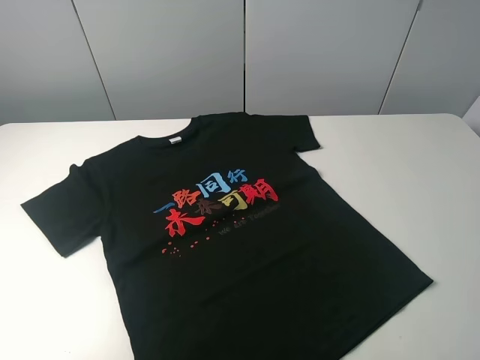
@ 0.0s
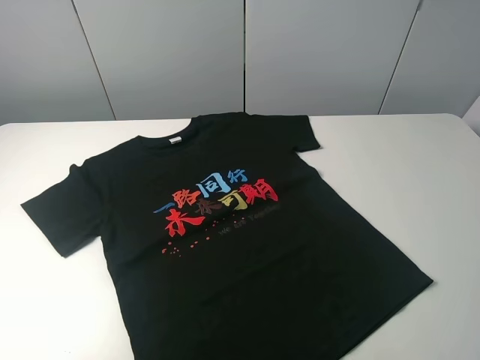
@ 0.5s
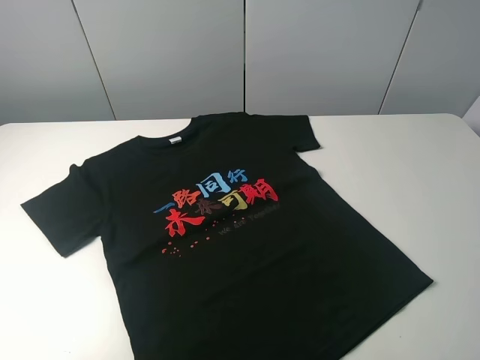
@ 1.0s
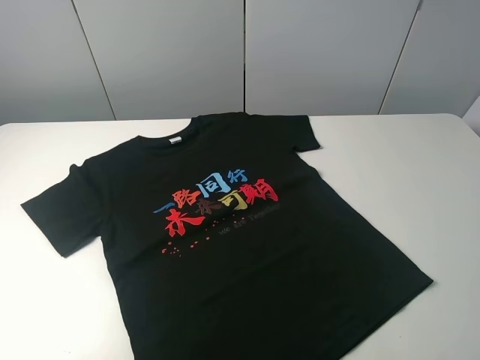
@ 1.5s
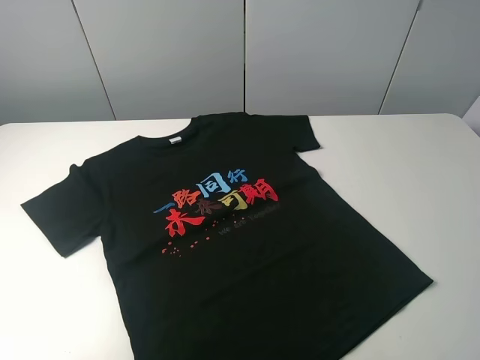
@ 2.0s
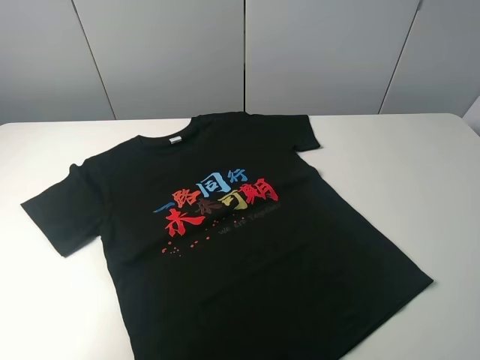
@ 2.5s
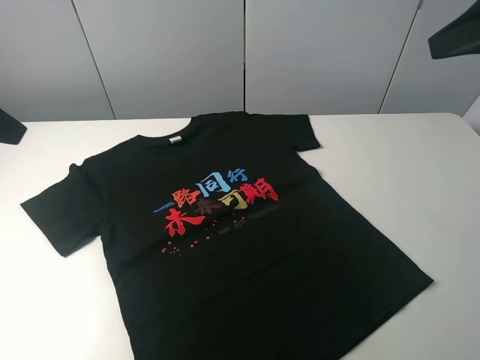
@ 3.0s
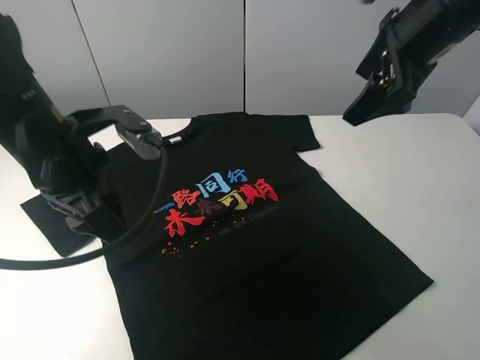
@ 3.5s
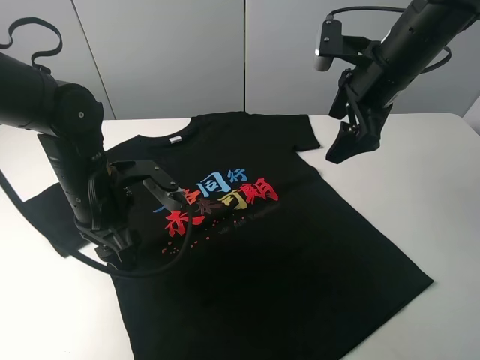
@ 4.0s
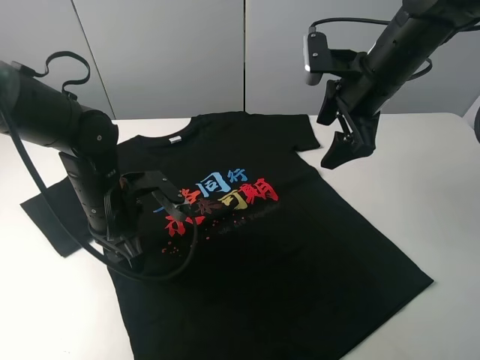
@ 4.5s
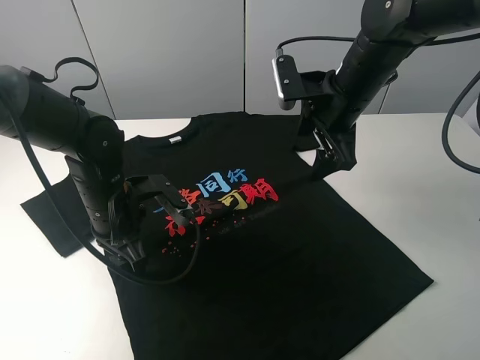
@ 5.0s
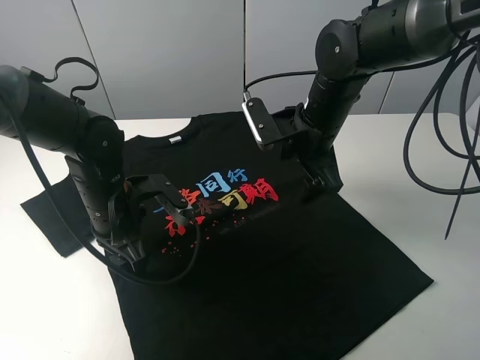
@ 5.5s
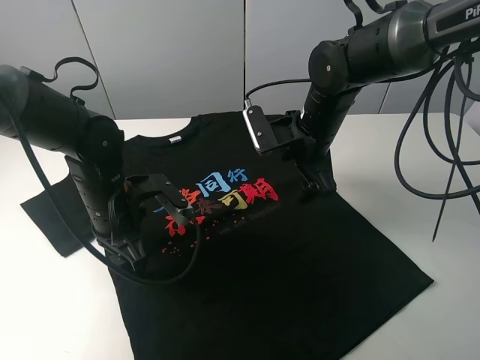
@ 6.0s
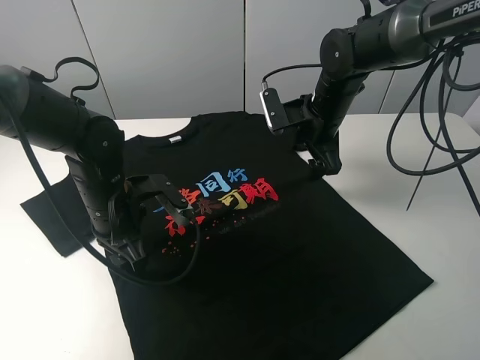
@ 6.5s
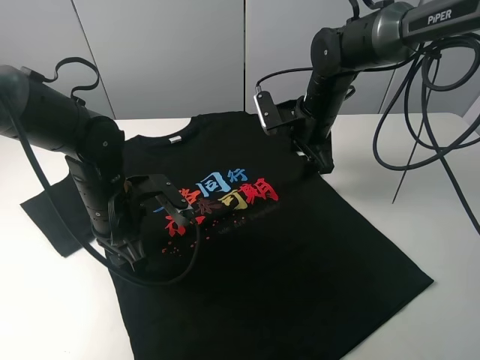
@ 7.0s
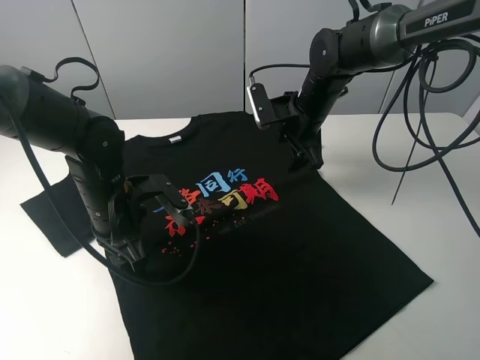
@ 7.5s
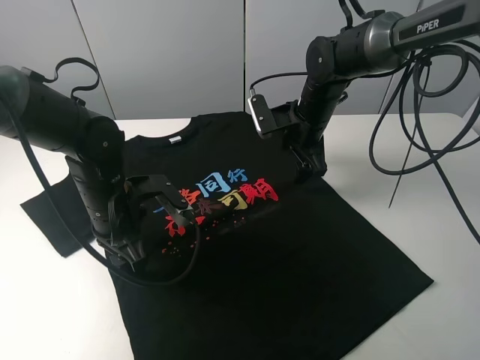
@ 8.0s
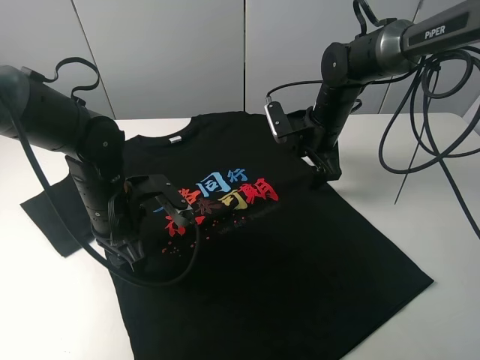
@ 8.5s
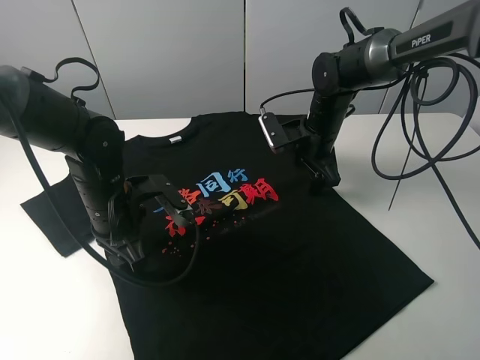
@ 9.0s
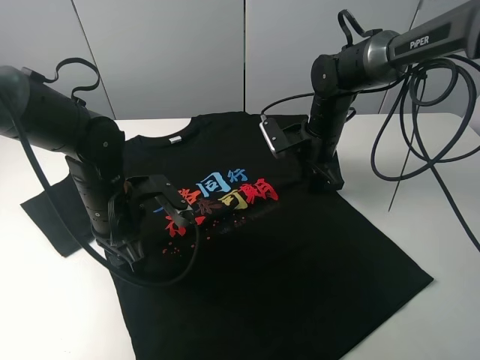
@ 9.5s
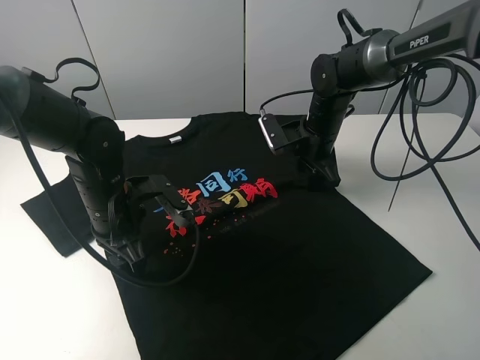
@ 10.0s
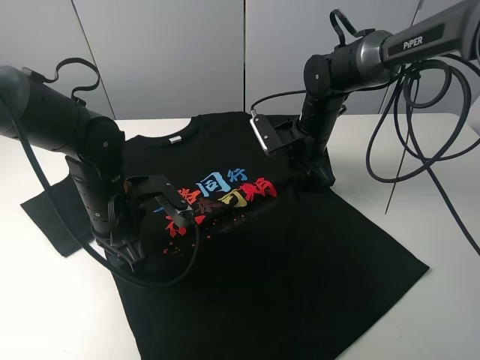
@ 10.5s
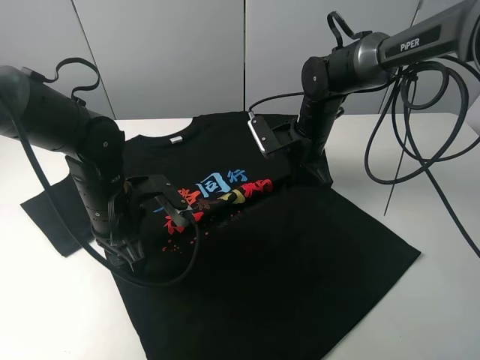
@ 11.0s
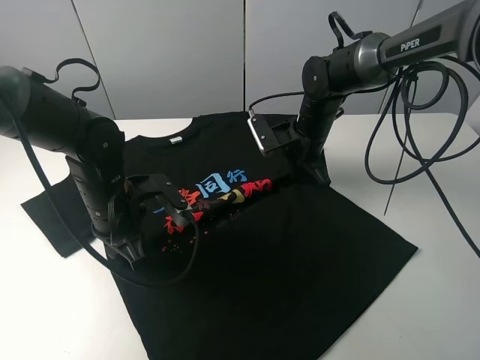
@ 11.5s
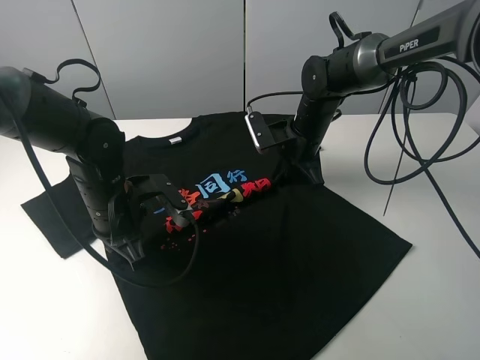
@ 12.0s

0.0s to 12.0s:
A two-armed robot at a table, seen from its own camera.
Task of the whole recording: fold the clothes on the table.
Step, 0.0s to 10.0s: Lift the black T-shirt with the left gripper.
0.0s to 2.0s: Both grippers stay put.
2.0s to 4.0s: The right gripper goes approximately 35 cm forward; the left gripper moves forward, to the right and downward, roughly 35 cm.
4.0s to 6.0s: The right gripper travels downward and to the left by some 10 cm.
6.0s to 8.0s: The right gripper shifts about 5 cm forward.
8.0s to 10.0s: The grippers move only a little.
10.0s to 12.0s: The left gripper closes up; the right gripper closes.

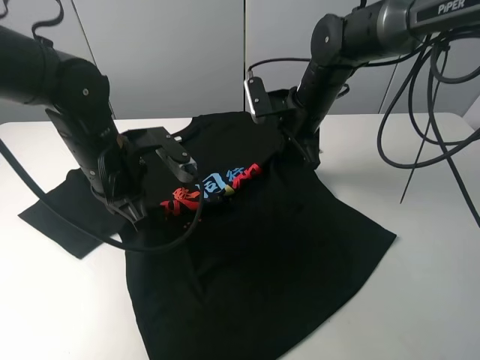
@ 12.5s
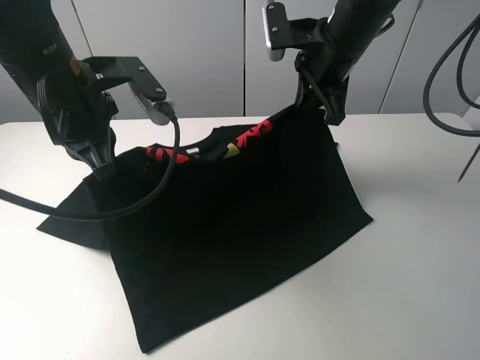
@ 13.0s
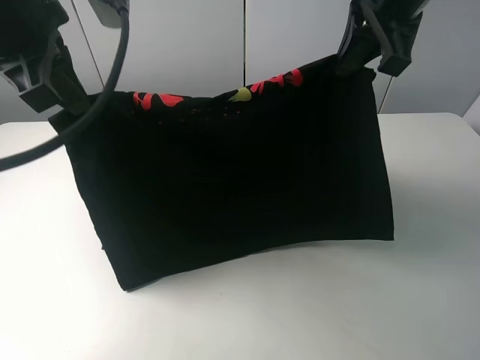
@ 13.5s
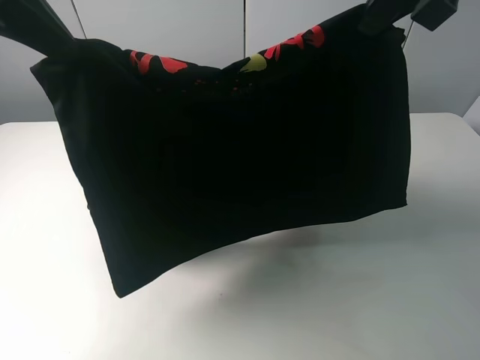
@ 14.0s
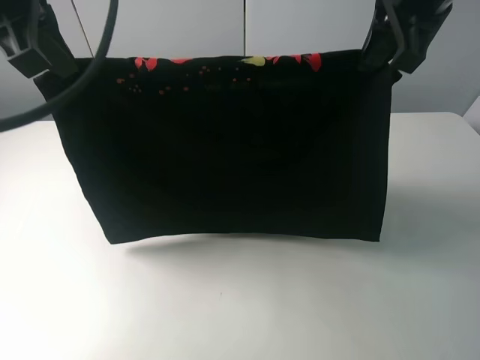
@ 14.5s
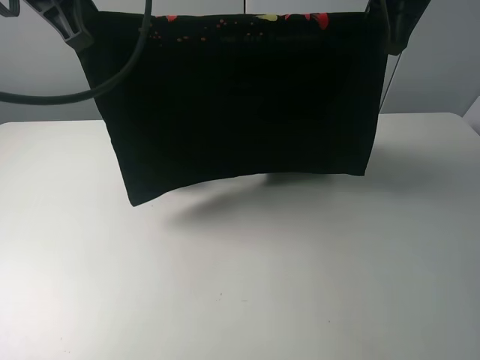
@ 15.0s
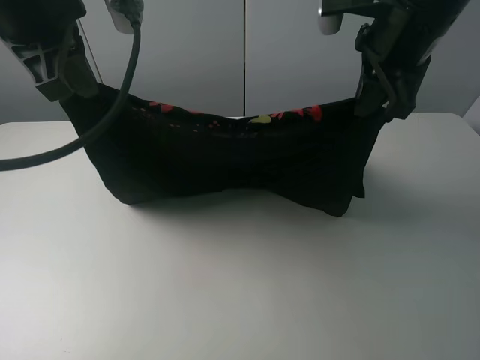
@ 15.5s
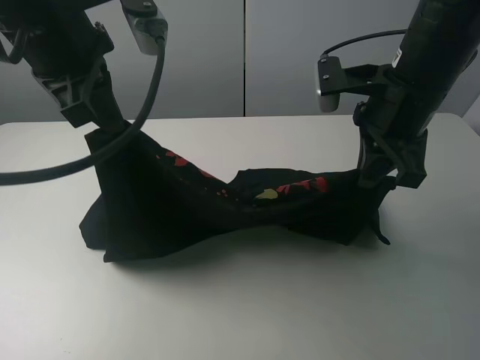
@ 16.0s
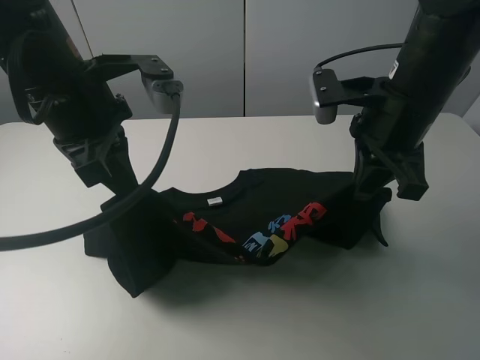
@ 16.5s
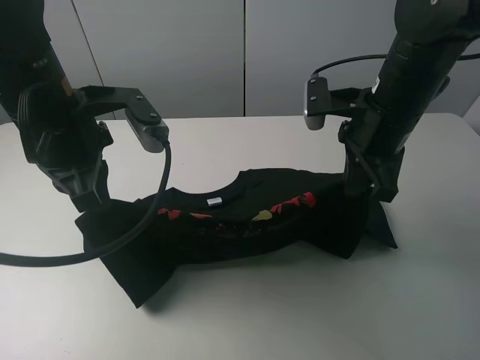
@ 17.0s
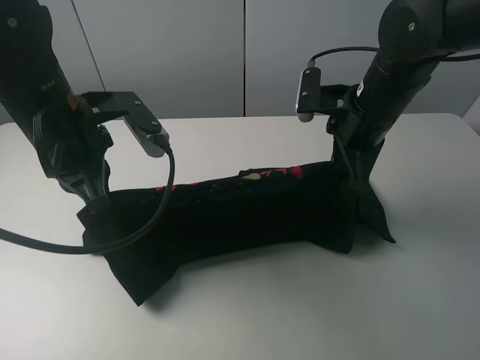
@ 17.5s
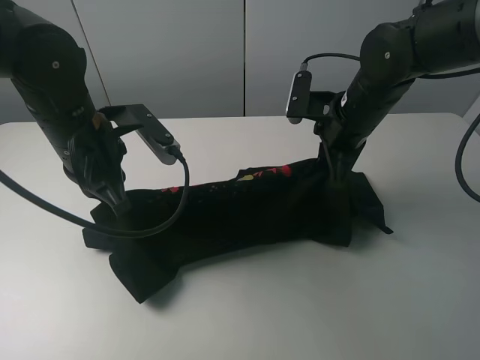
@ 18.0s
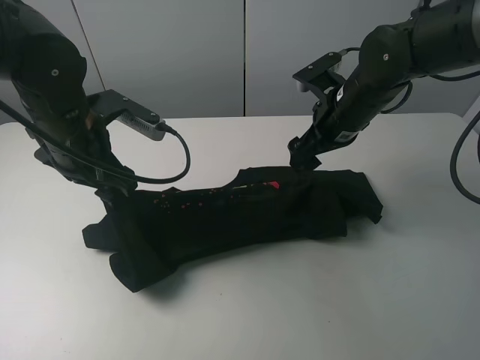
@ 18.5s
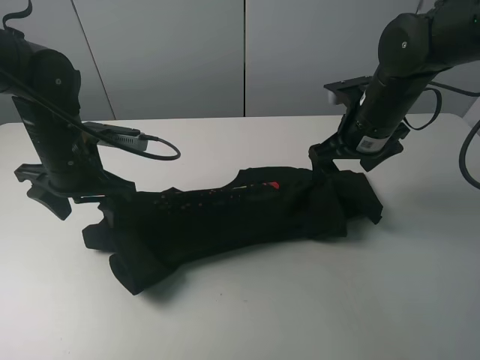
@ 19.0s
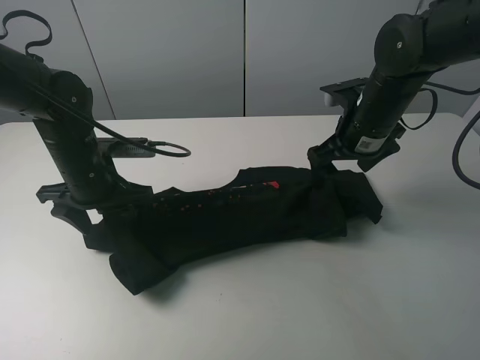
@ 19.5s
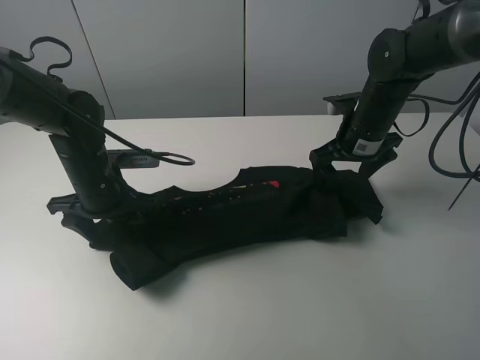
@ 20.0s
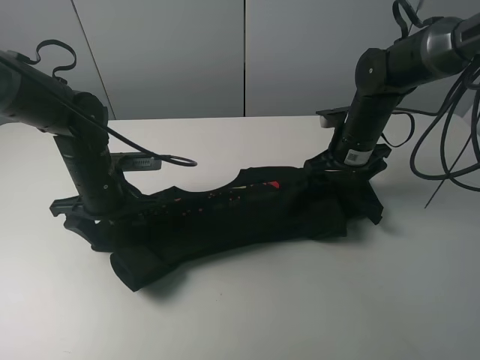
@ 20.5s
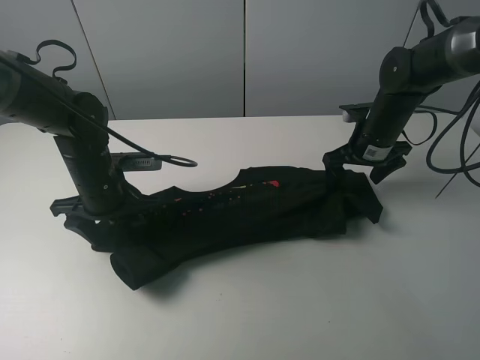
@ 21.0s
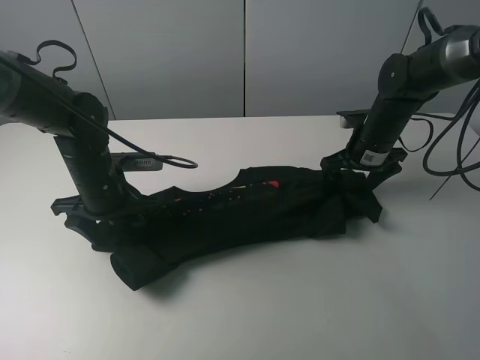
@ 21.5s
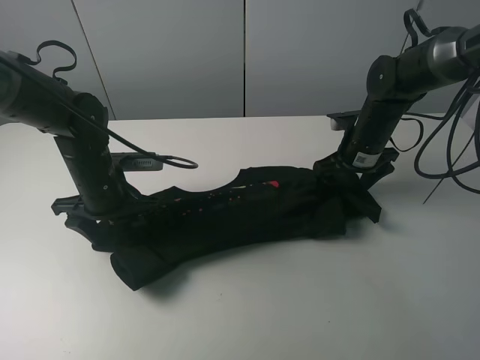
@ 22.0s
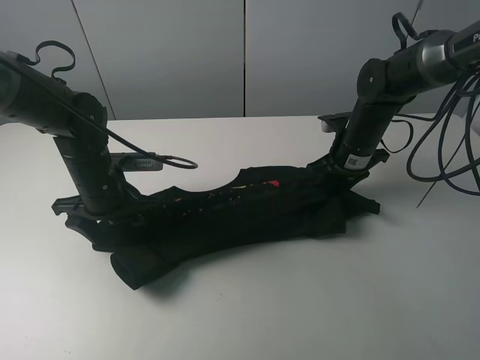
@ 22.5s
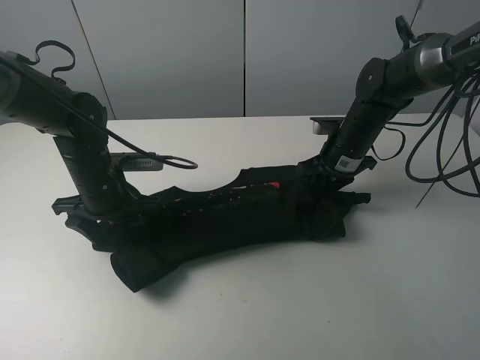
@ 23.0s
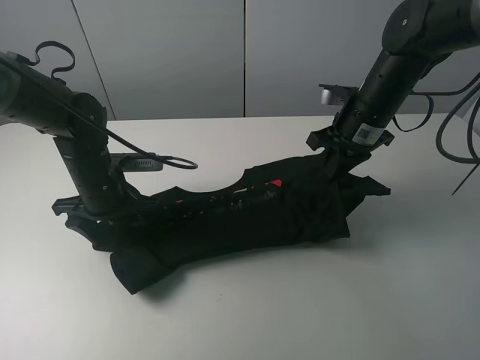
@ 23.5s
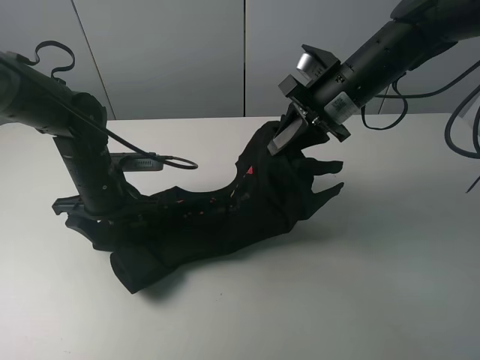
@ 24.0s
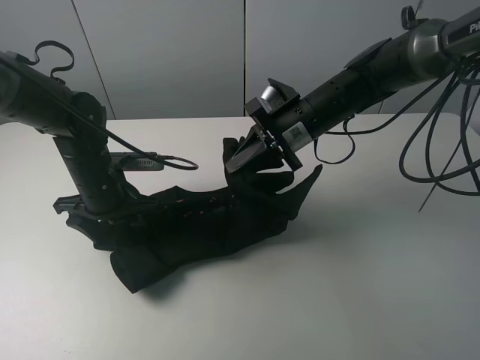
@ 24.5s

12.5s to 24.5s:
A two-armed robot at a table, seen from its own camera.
Task of the whole recording: fold the clothes on the table.
Step, 12.5s to 18.0s: Fold the black T-shirt downward with the left gripper.
Step, 18.5s to 22.5s: Grasp the black T-shirt with the right gripper.
12.5s to 14.5s: The left gripper travels upward by approximately 20 cm, while the right gripper is displaced upward and backward by some 20 cm.
14.5s to 16.5s: The two grippers go roughly 10 cm downward.
16.5s to 18.5s: The right gripper travels forward and downward by about 10 cm, and opens up, while the left gripper heads downward, covering roughly 5 cm, and opens up.
18.5s to 20.5s: The left gripper goes about 10 cm downward, while the right gripper goes about 5 cm downward.
20.5s to 22.5s: The right gripper closes.
22.5s to 24.5s: The right gripper moves to the left and upward, about 10 cm.

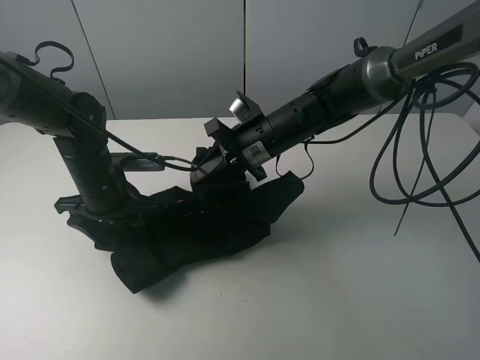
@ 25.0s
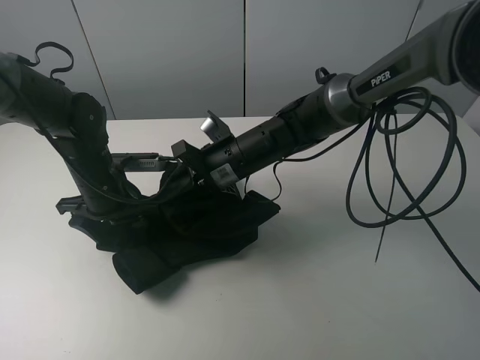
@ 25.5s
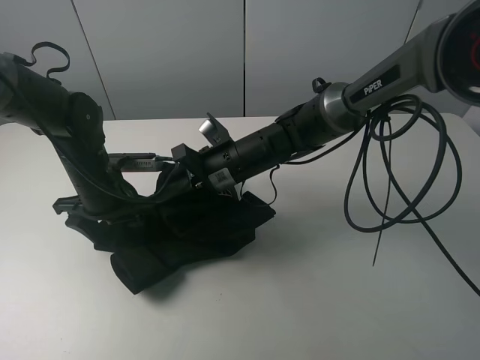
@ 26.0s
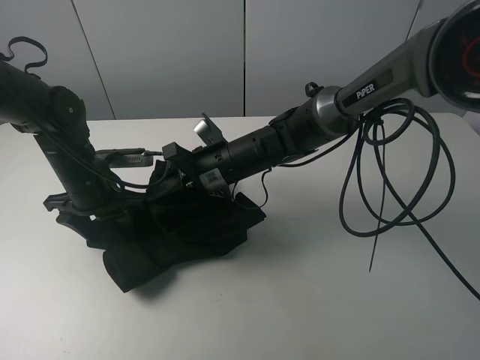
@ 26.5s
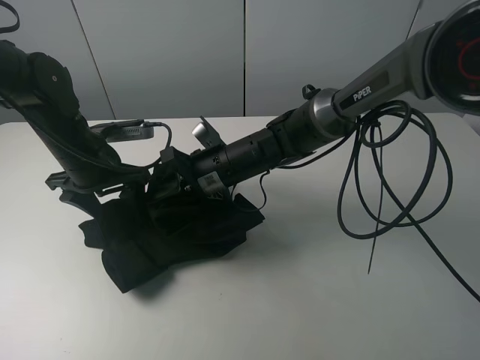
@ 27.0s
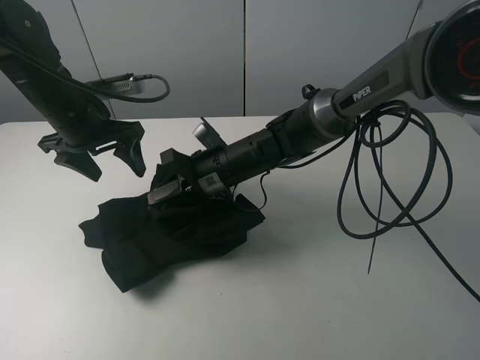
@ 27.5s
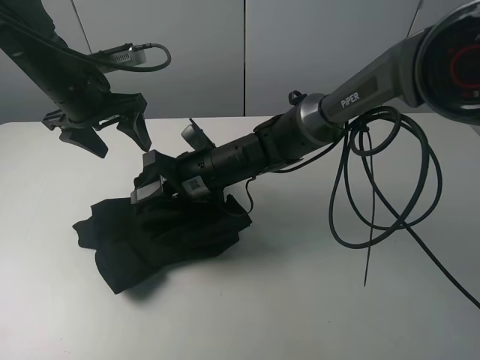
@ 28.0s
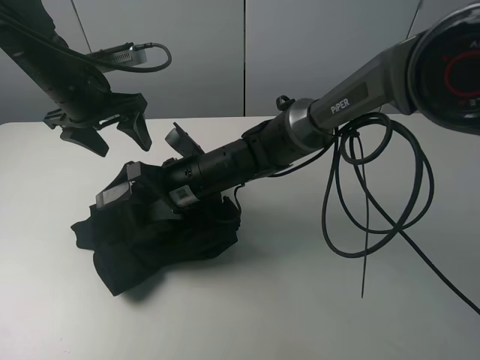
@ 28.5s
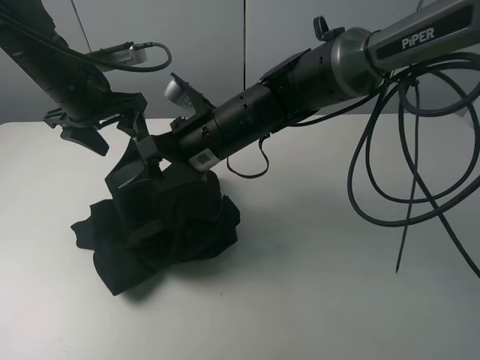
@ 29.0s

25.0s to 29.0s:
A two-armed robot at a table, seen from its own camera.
Task of the whole recording: fold the clothes on the table.
25.0s to 27.0s: The right gripper moves to the left, some 5 cm. Meanwhile the left gripper is displaced upward by roughly 5 cm.
27.0s to 29.0s: The grippers both shift upward by about 10 cm. The right gripper opens its fingers.
